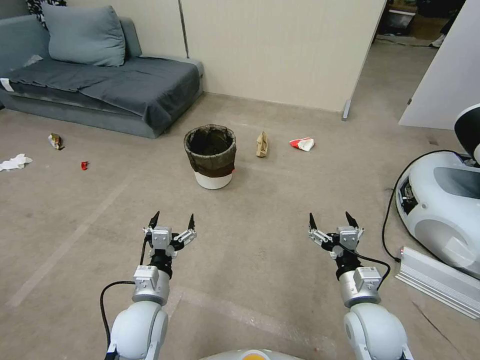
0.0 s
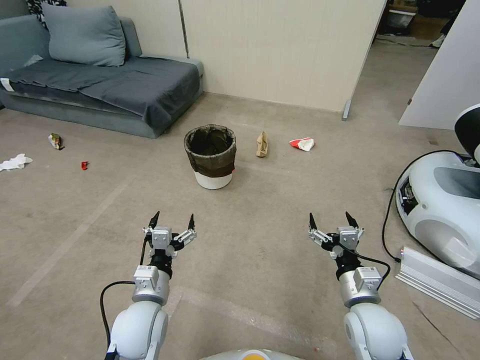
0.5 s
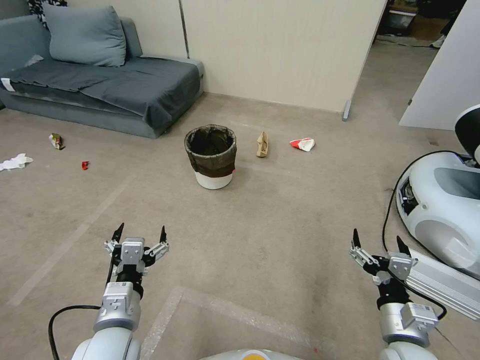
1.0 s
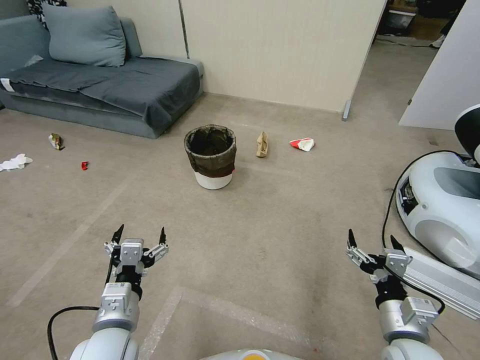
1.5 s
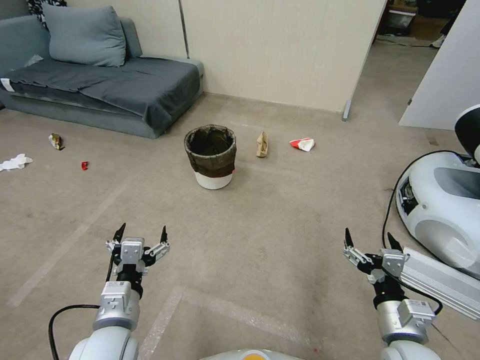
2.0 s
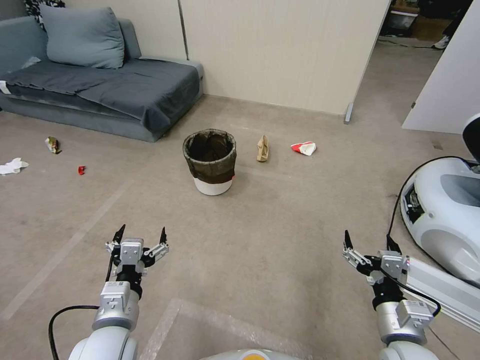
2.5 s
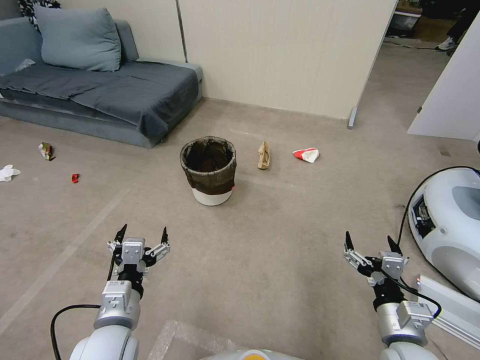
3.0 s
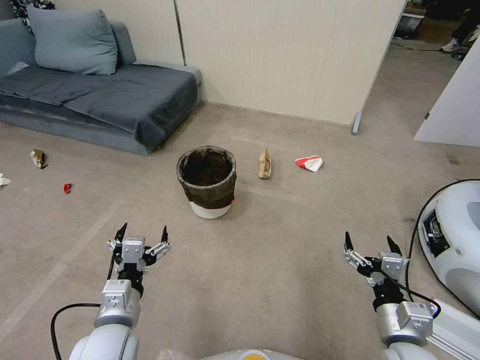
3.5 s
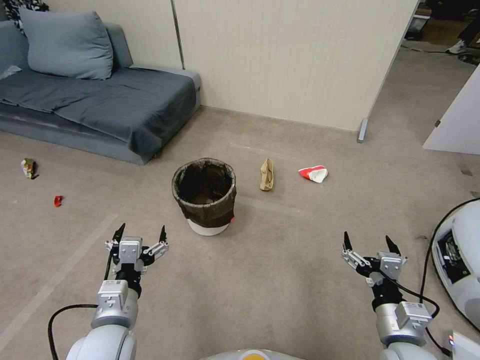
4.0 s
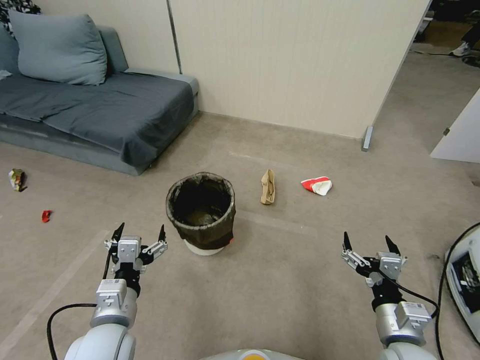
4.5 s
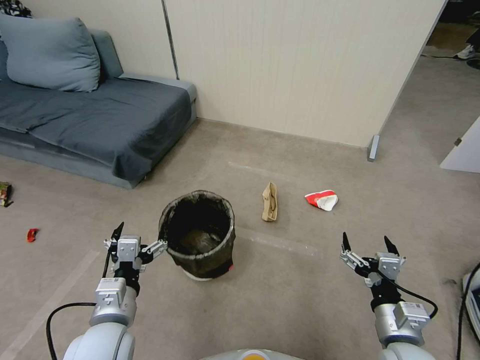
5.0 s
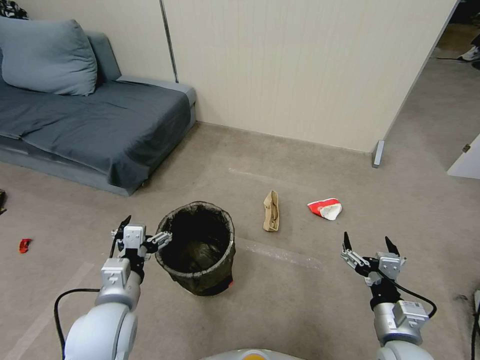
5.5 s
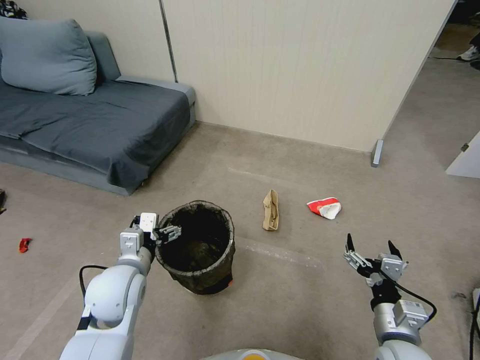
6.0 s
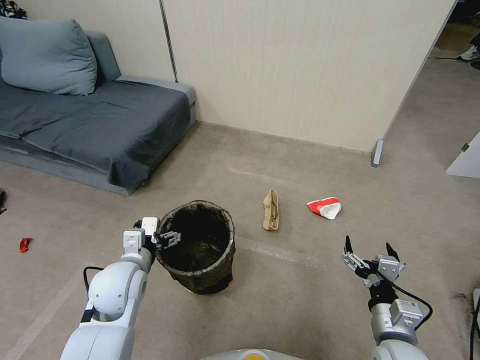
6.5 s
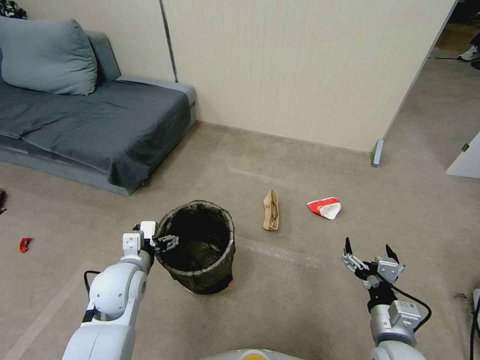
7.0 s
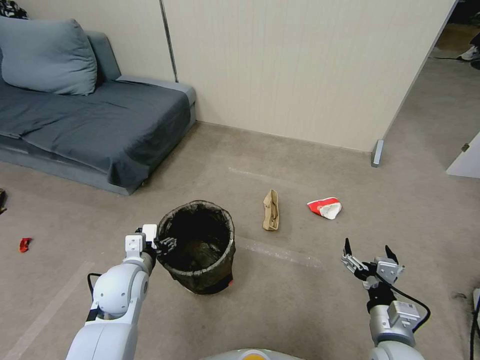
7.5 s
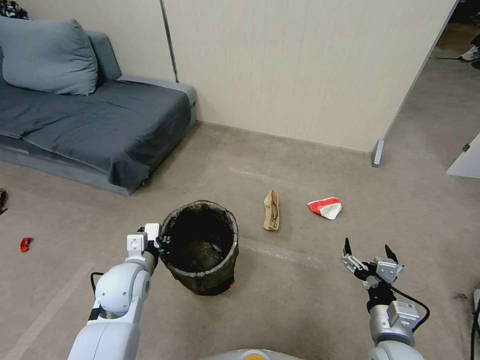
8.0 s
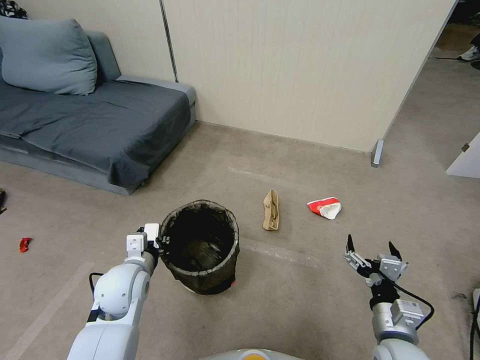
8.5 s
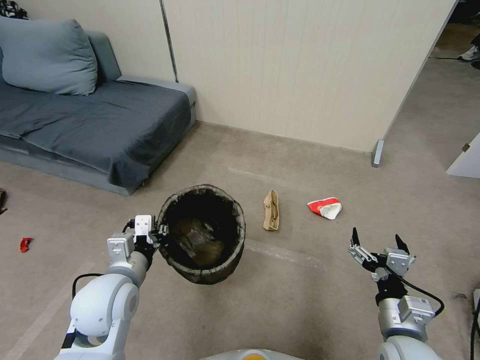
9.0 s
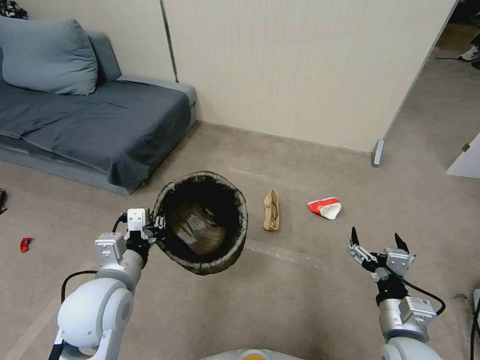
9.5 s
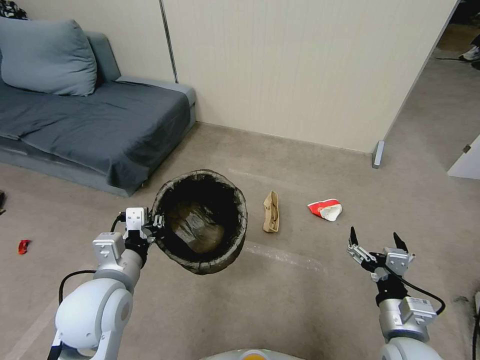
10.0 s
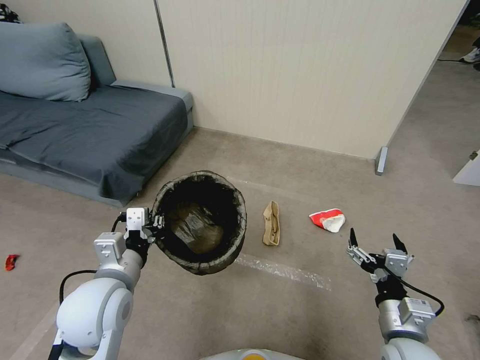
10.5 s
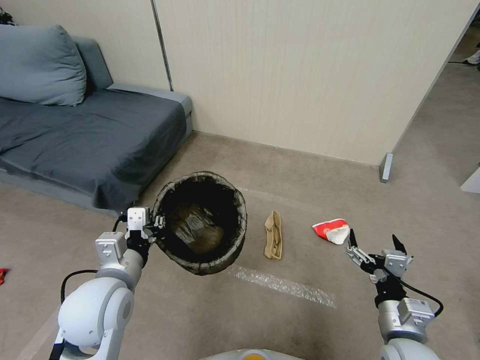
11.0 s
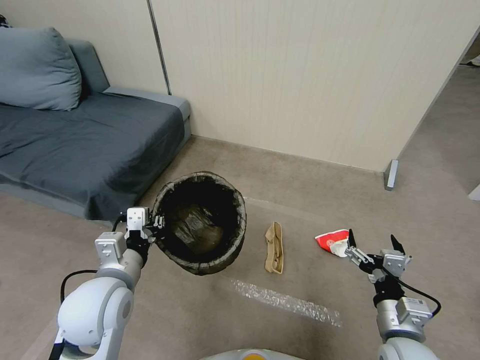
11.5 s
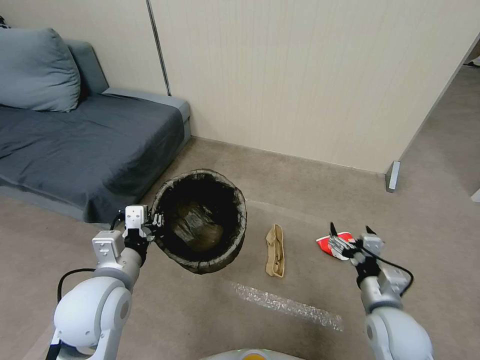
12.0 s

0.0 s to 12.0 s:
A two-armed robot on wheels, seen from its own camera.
Task of the whole recording: Pick up the trash bin, then pick up the garbage from the floor and place it into the trash bin.
4.0 to 6.0 s: The left gripper travels forward by about 10 cm.
6.0 to 8.0 s: The left gripper closes.
8.0 to 10.0 s: The left gripper shifts some 10 cm upward and backward.
10.0 to 12.0 s: The right gripper goes approximately 5 cm forward.

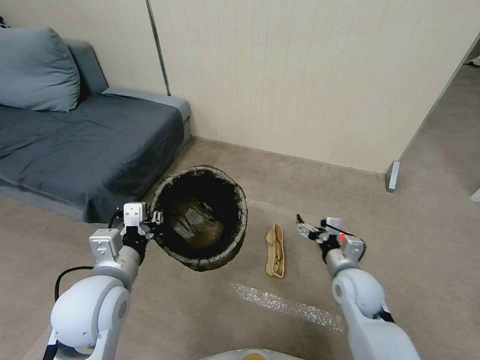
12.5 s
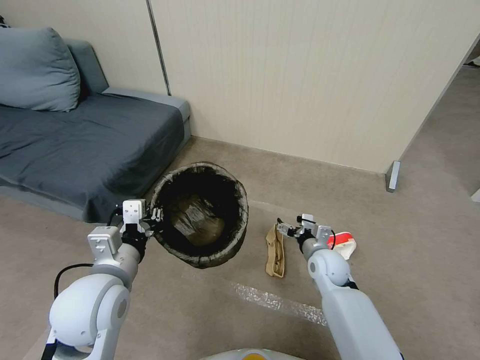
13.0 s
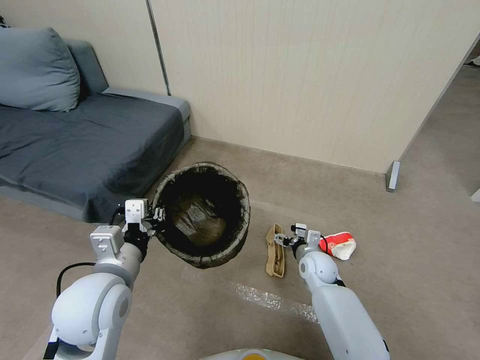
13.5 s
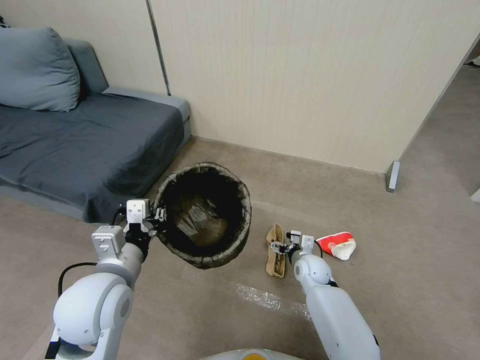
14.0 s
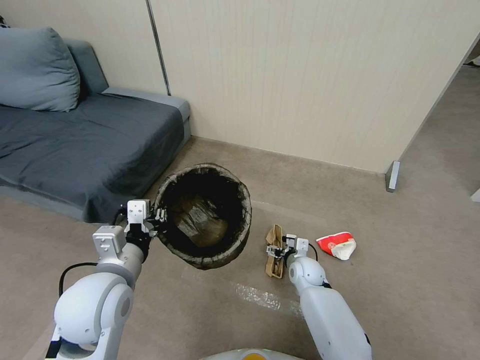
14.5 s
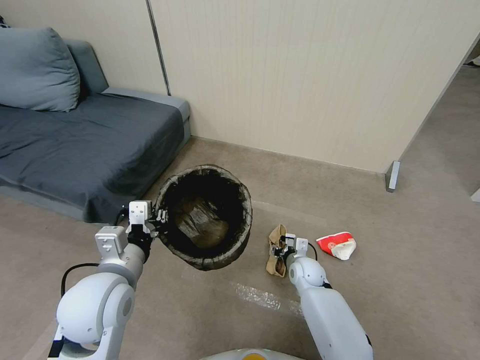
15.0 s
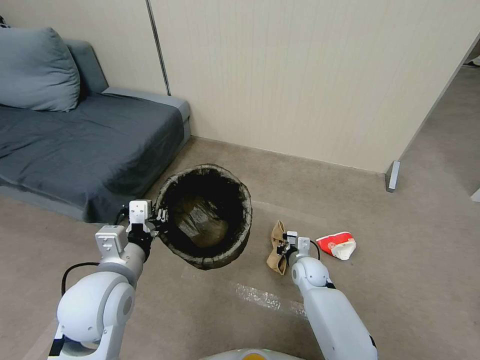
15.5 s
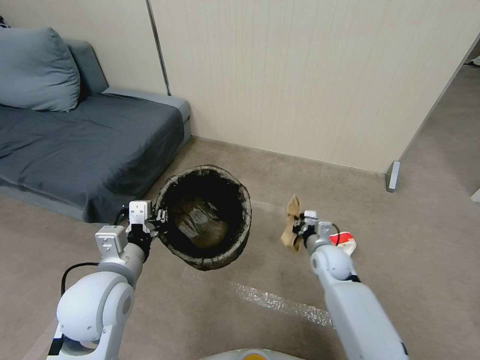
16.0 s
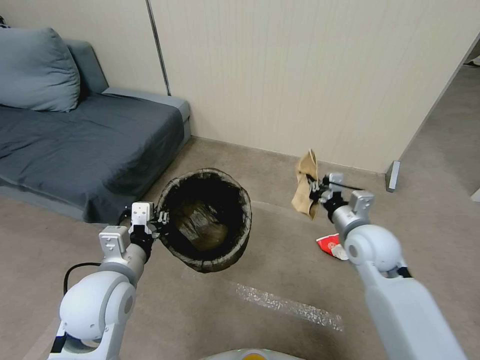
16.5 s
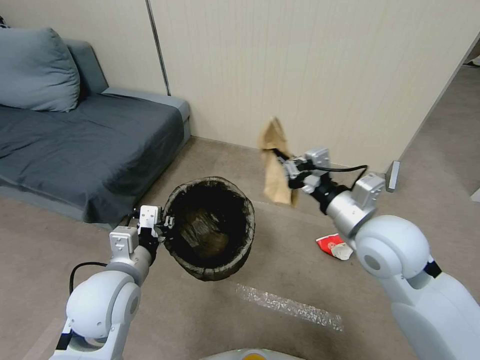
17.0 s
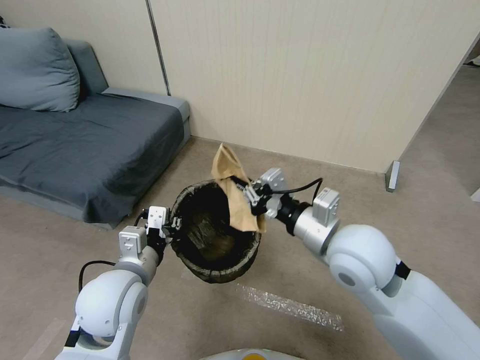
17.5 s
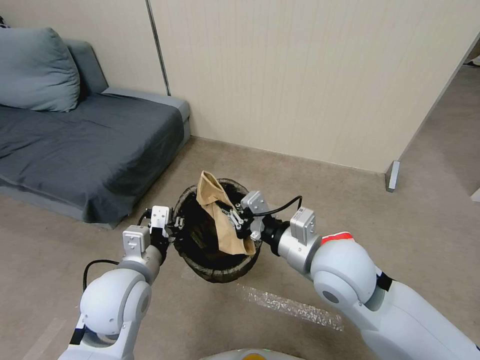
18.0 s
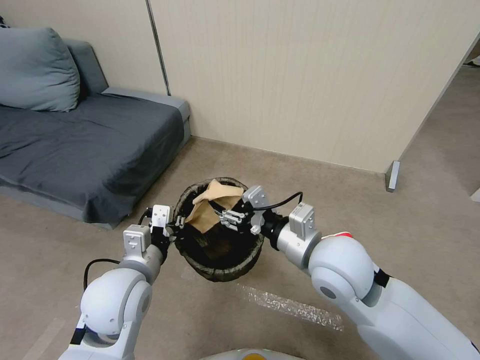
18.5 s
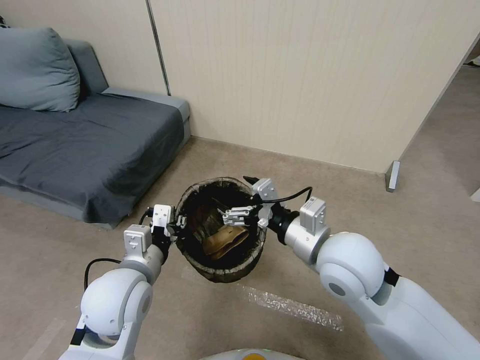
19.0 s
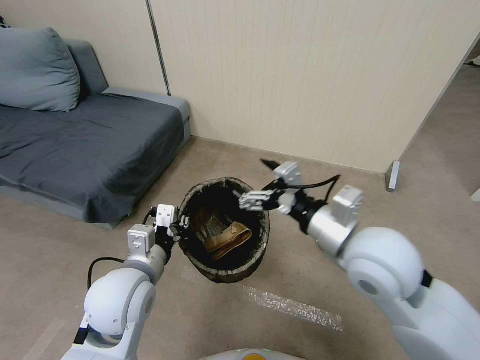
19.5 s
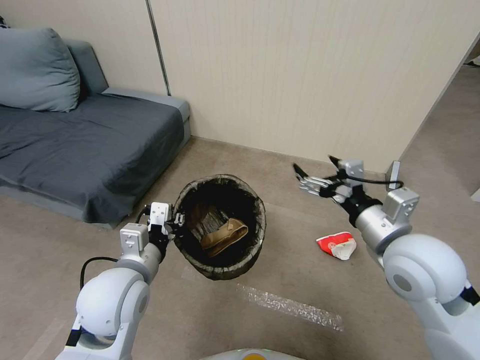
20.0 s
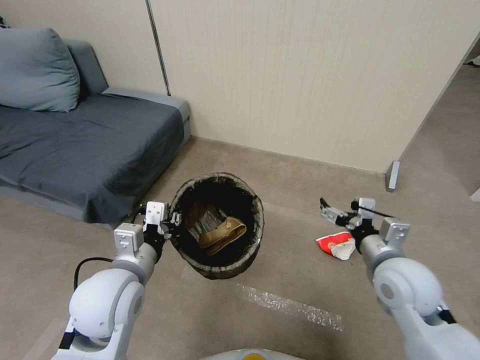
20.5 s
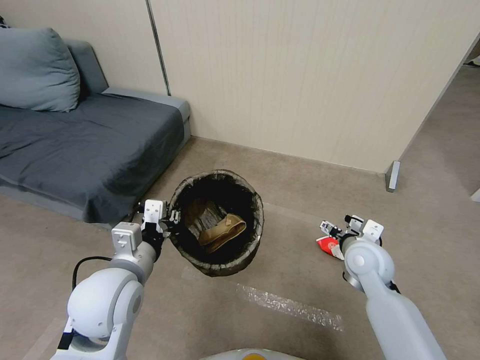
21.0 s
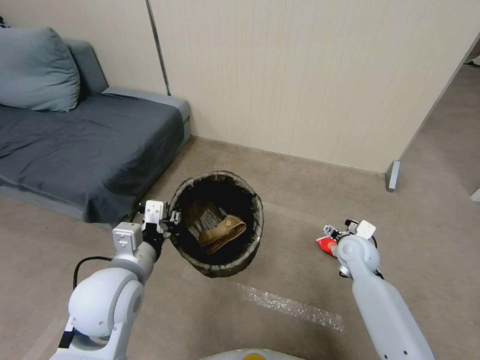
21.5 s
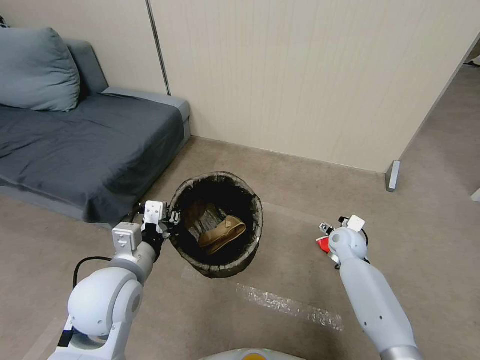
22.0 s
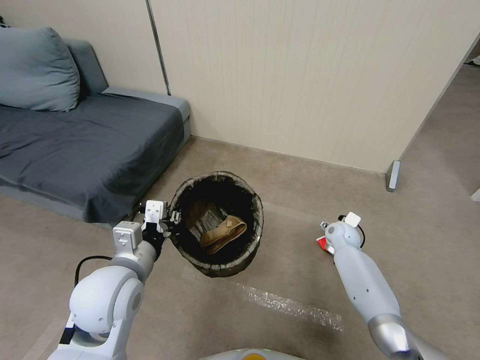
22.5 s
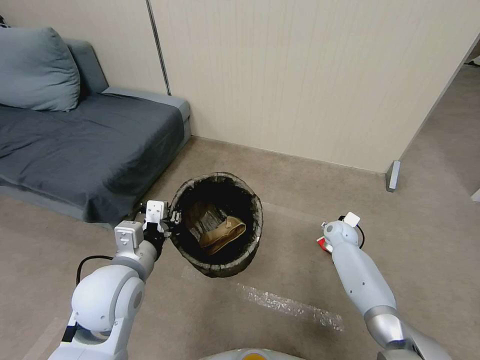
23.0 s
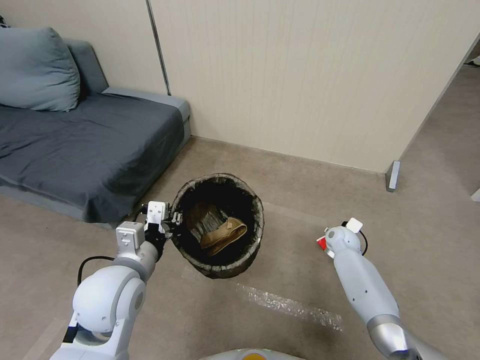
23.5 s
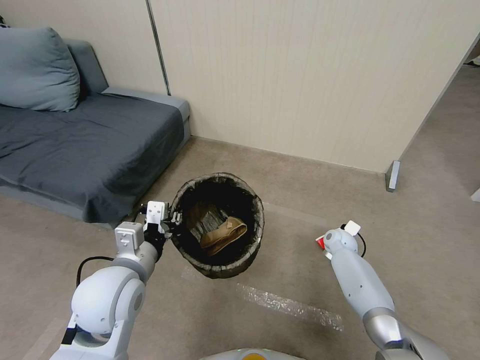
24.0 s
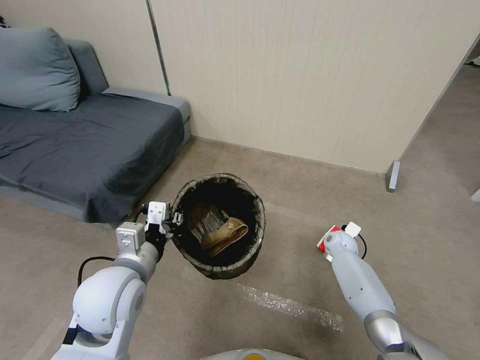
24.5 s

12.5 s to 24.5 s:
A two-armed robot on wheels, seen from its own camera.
Task of the whole recording: Pick up the trash bin, then pick up the garbage from the floor and place it into the trash bin.
12.5 to 14.5 s: The right gripper goes about 15 cm downward, forward and to the left.
14.5 to 16.5 s: The right gripper heads upward, covering approximately 25 cm, and closes its fingers.
16.5 to 18.5 s: The right gripper goes about 15 cm to the left, upward and backward, and opens its fingers.
18.5 to 20.5 s: The right gripper is displaced to the right and downward by approximately 15 cm, and opens up.
20.5 to 22.5 s: The right gripper is displaced forward and downward by roughly 30 cm.
22.5 to 24.5 s: The right gripper closes up.

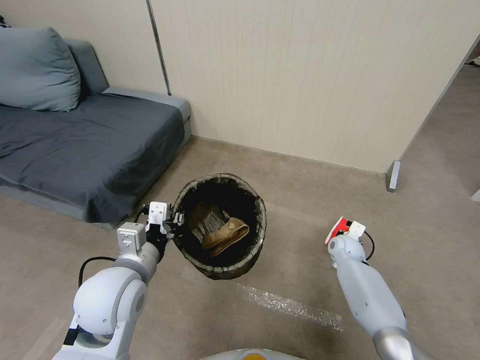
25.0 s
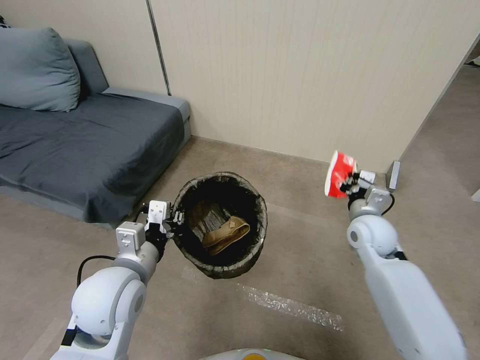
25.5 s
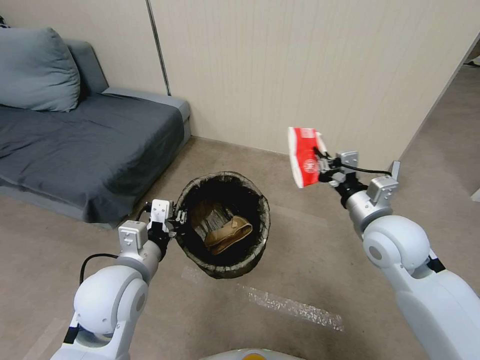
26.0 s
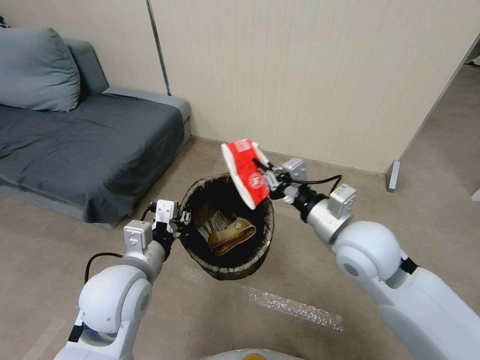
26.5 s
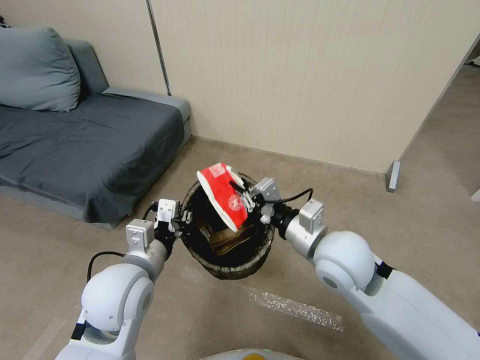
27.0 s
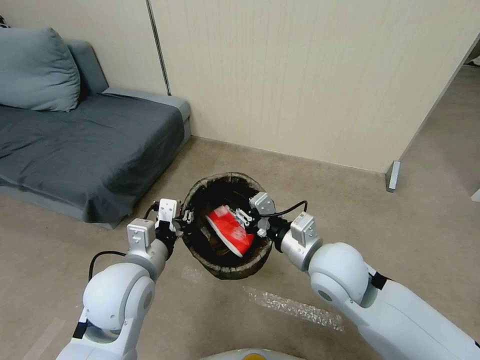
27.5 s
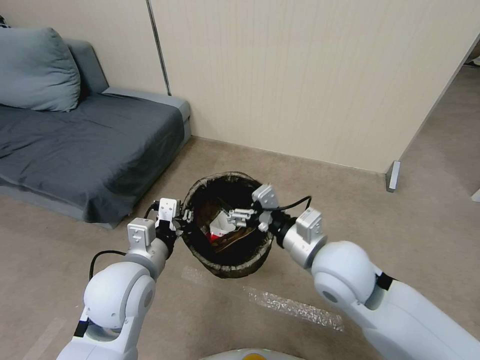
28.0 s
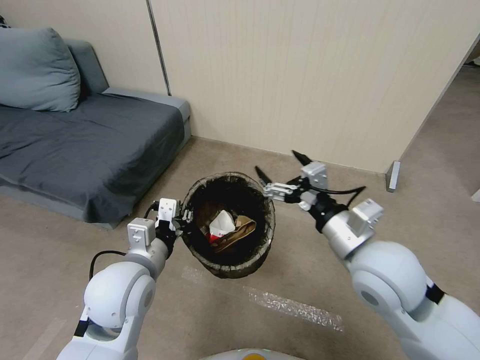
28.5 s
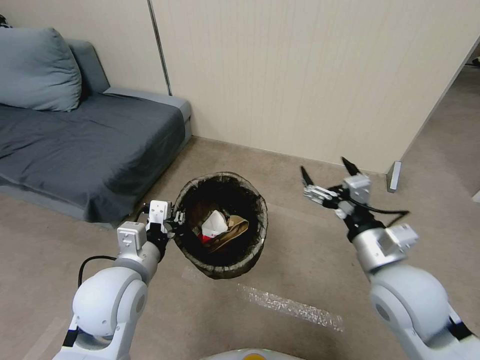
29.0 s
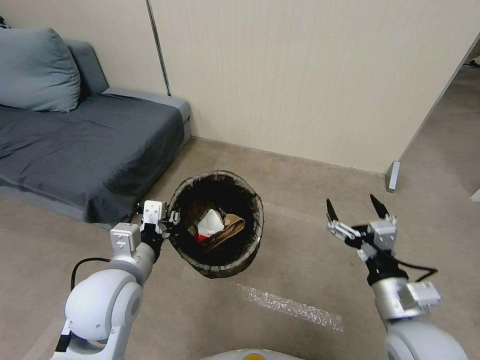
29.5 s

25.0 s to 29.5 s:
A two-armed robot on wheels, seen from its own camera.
Task of the whole recording: Pick up the trash bin, then pick up the garbage from the floor and place it into the trash bin.
25.0 to 27.0 s: The right gripper is displaced upward, backward and to the left by some 35 cm.
27.0 to 29.5 s: The right gripper shifts roughly 20 cm backward, to the right and downward, and opens up.
